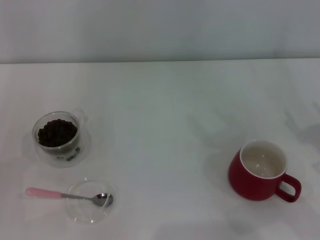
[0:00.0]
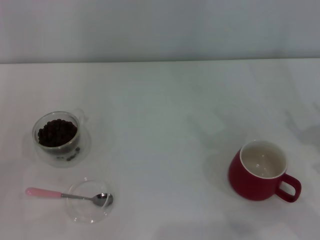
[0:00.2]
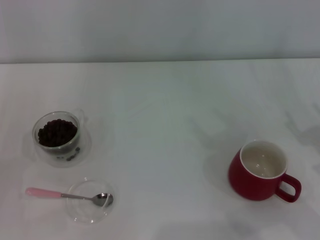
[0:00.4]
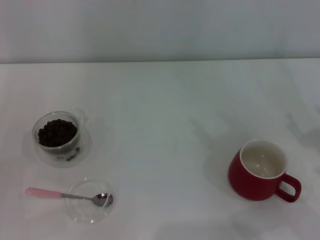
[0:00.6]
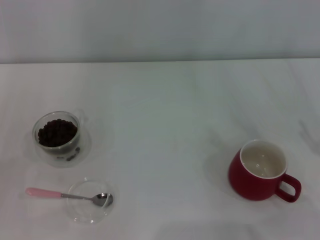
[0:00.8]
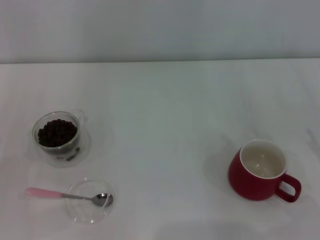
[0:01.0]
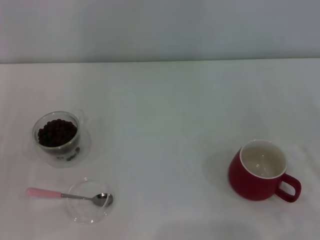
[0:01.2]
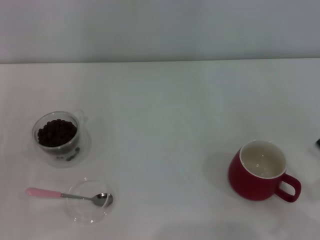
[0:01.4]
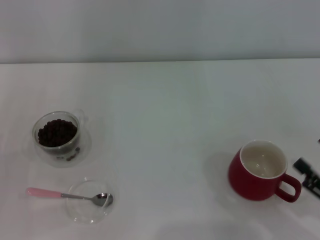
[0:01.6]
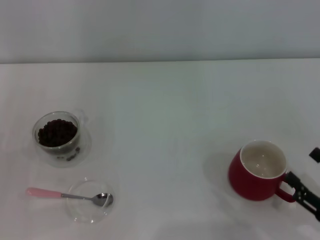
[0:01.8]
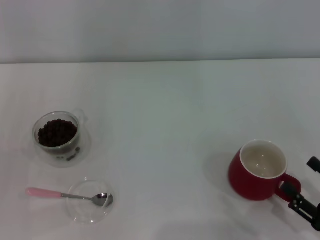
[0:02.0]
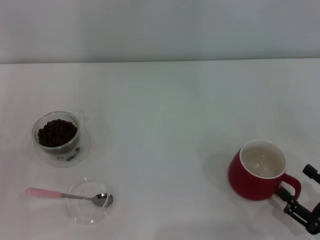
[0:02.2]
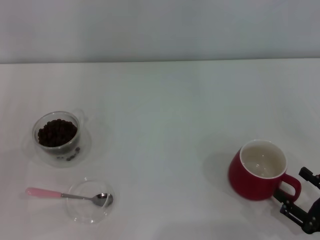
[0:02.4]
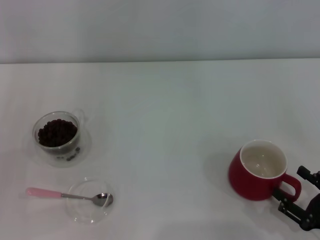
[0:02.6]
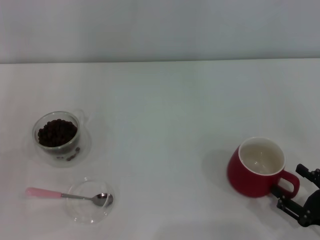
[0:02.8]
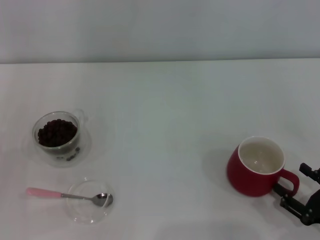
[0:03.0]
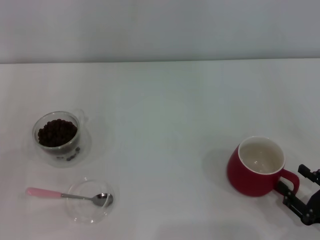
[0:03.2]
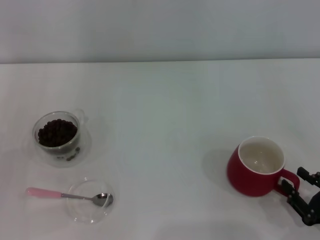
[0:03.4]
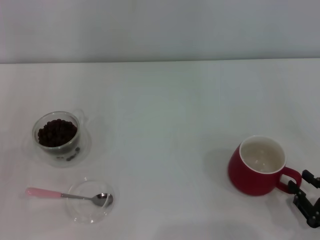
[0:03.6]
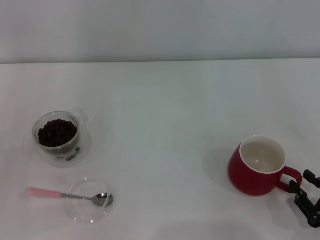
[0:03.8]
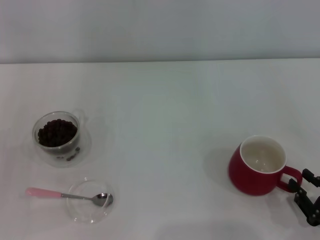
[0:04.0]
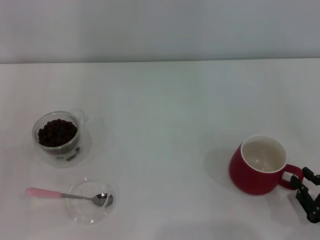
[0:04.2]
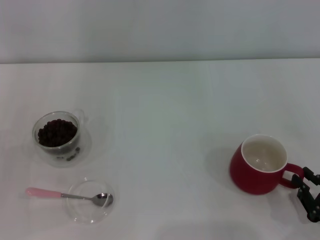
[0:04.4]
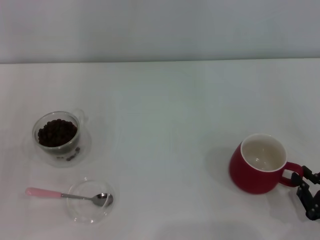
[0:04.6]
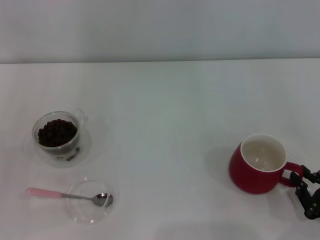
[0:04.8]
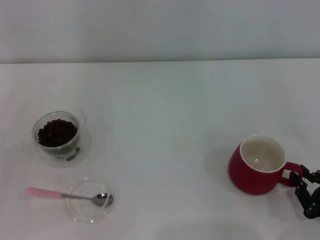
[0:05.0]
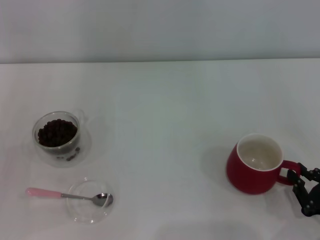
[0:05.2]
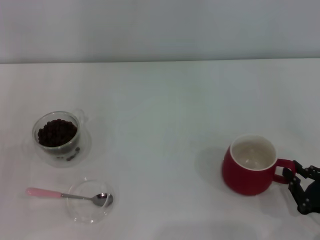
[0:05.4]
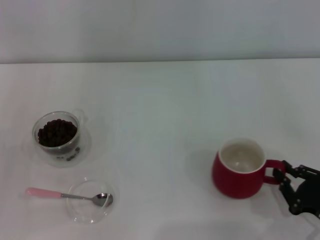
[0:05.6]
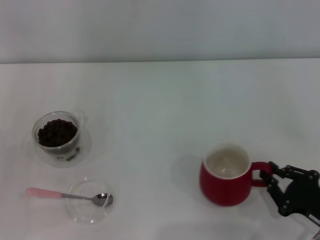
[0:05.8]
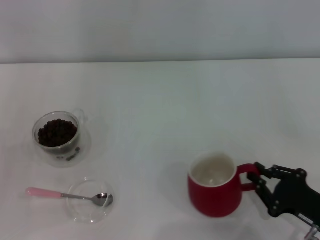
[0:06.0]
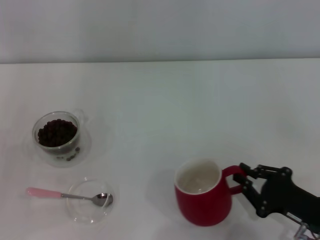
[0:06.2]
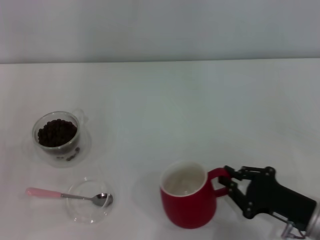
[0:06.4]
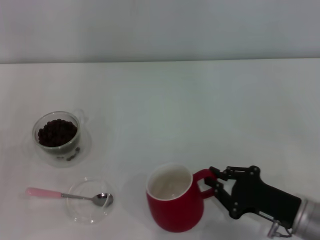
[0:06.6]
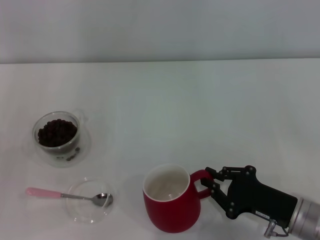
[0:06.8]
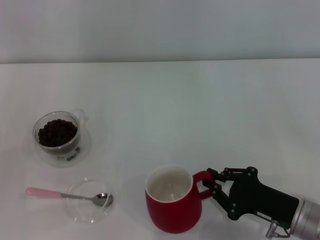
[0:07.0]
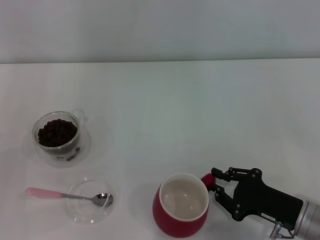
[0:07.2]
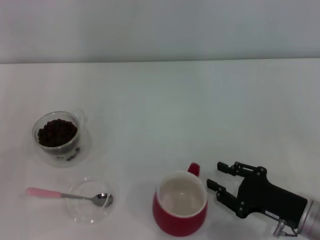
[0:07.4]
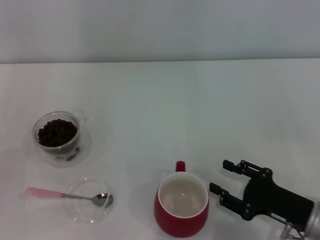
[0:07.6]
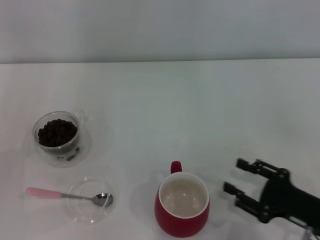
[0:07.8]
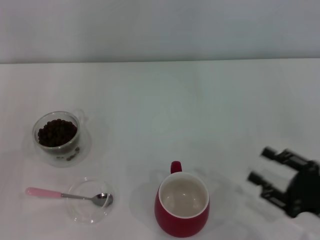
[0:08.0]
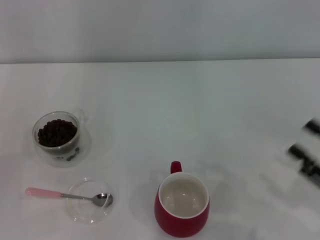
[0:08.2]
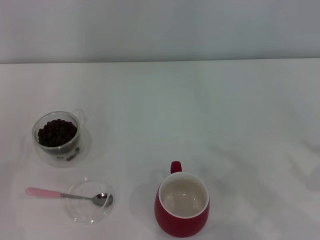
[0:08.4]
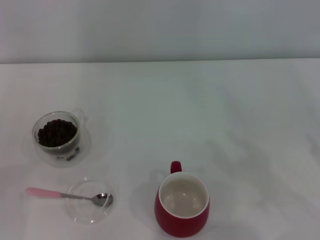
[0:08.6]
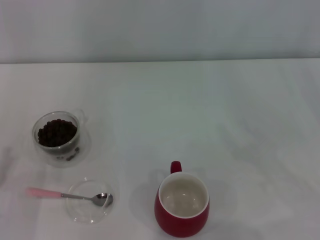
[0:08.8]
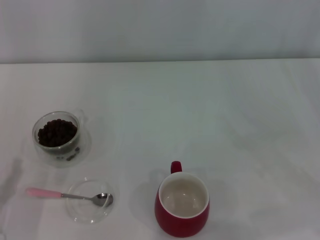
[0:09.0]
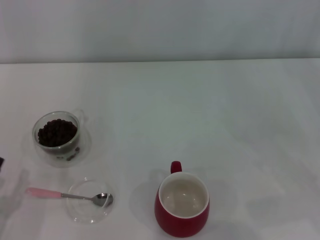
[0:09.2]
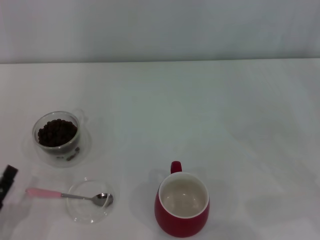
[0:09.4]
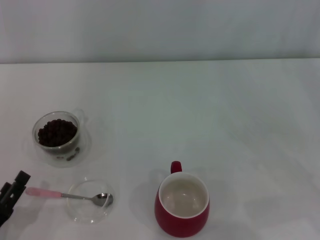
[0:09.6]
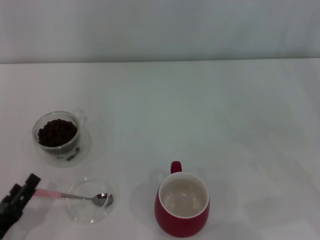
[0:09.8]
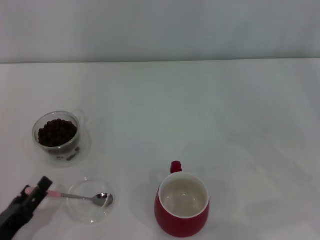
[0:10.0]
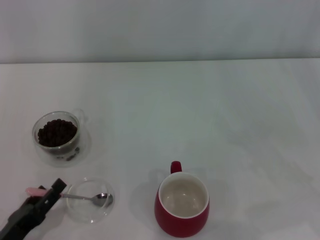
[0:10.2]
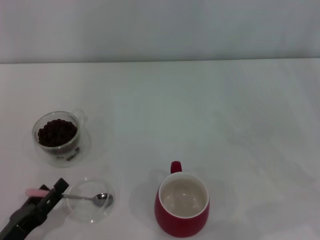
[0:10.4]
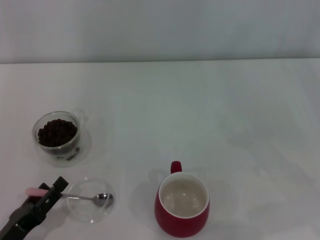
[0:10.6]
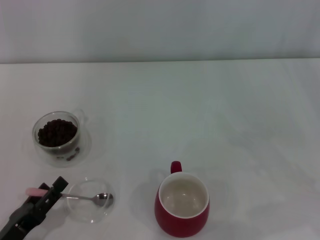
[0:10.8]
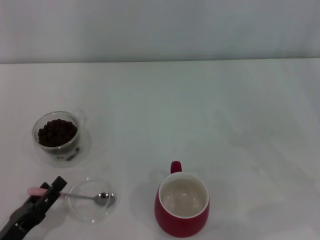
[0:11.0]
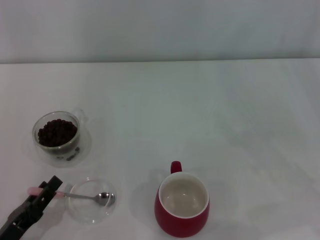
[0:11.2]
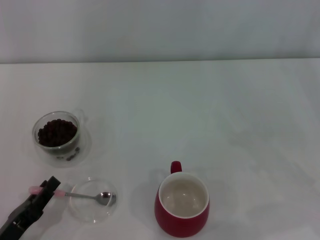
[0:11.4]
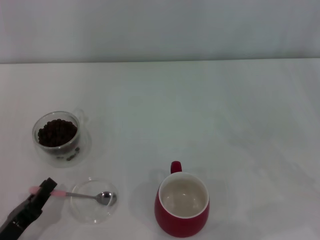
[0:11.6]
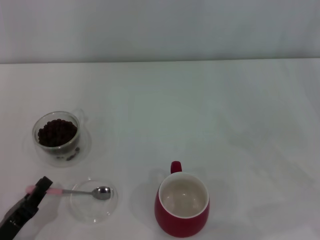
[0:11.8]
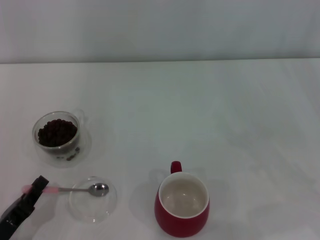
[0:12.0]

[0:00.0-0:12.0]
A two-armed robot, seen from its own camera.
Task of the whole recording: Use a pink spoon to take out the coffee beans from the glass and pour them into the red cup.
Step, 0:00.0 to 0:07.2: Move the cup to the center of view with the left gripper.
0:00.0 to 0:01.6: The right gripper heads backward and downward, covering some 10 cm.
0:01.6 to 0:03.0: The grippers move only a little.
0:03.0 to 0:04.4: The right gripper closes its fingers.
0:04.4 to 0:06.0: The right gripper changes place by about 5 cm.
0:06.0 to 0:07.6: The right gripper opens.
0:07.6 to 0:09.0: The left gripper travels to the right, downward and backward by about 10 cm; the right gripper heads to the right and upward, covering roughly 15 cm.
0:10.4 to 0:12.0: The left gripper closes its fingers.

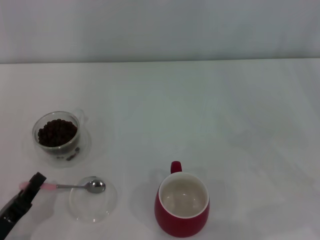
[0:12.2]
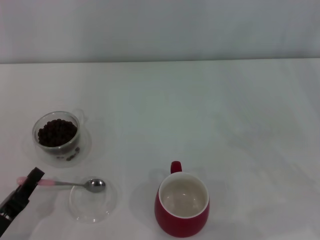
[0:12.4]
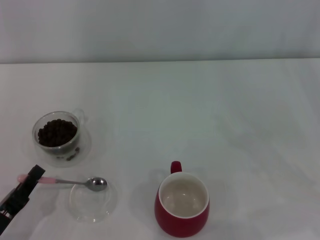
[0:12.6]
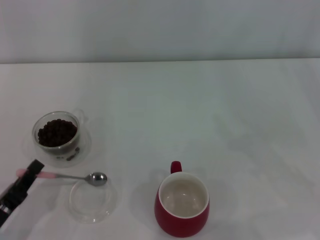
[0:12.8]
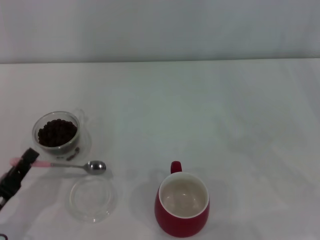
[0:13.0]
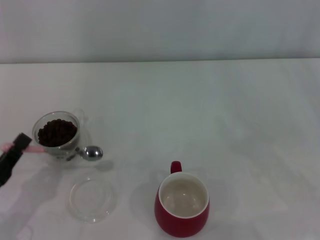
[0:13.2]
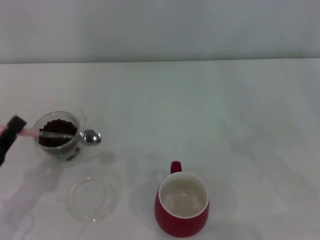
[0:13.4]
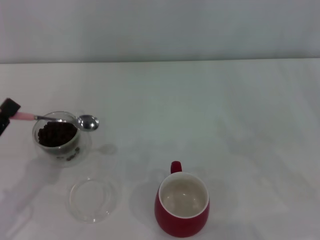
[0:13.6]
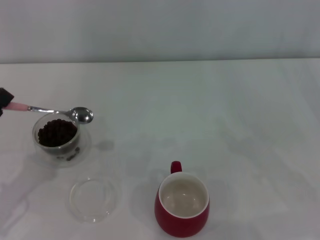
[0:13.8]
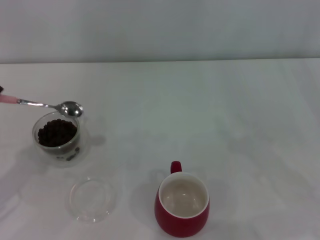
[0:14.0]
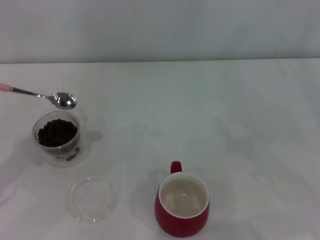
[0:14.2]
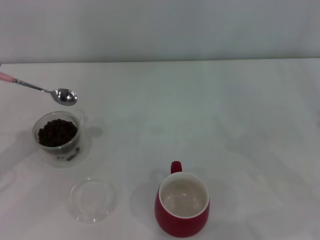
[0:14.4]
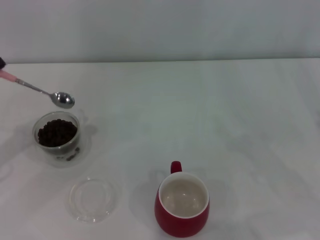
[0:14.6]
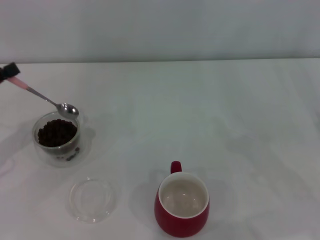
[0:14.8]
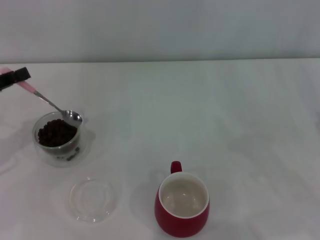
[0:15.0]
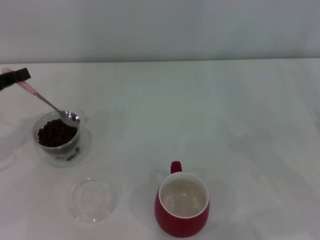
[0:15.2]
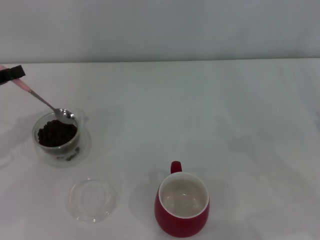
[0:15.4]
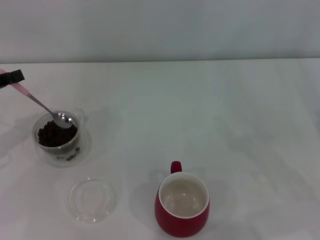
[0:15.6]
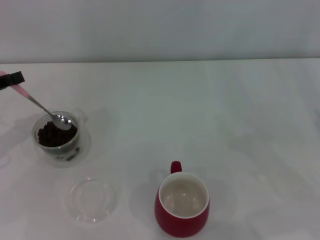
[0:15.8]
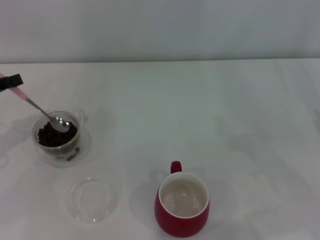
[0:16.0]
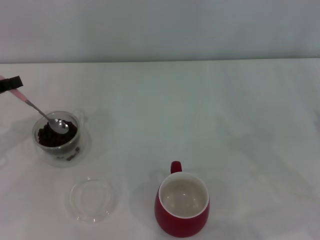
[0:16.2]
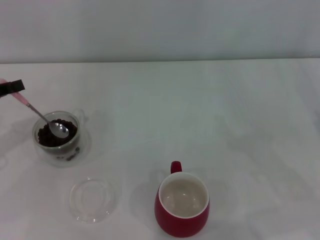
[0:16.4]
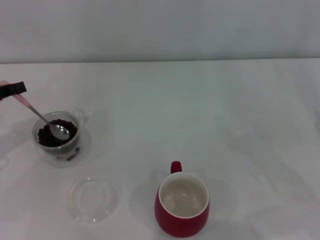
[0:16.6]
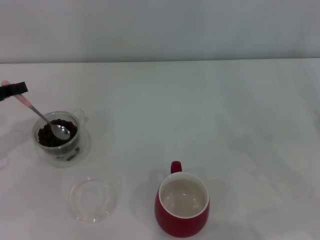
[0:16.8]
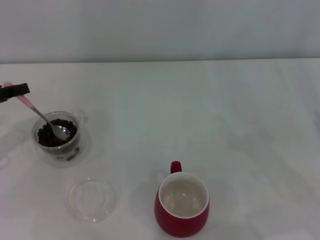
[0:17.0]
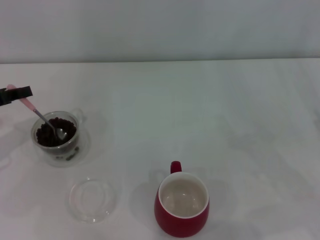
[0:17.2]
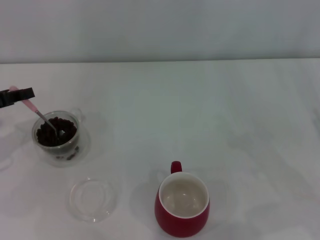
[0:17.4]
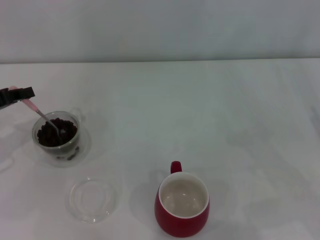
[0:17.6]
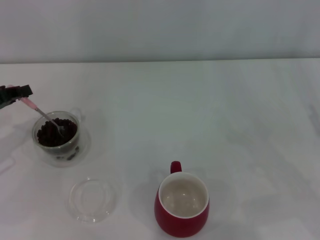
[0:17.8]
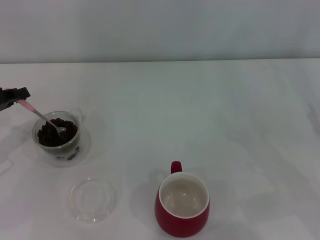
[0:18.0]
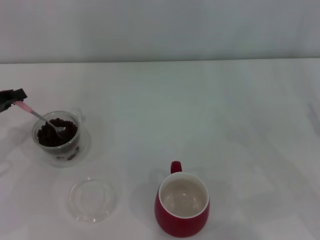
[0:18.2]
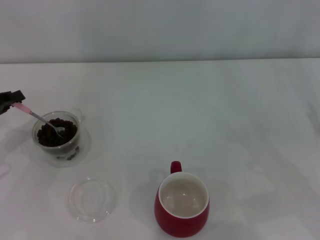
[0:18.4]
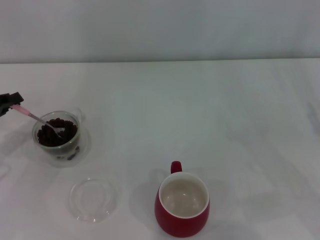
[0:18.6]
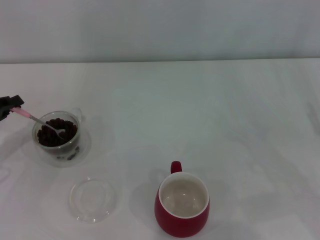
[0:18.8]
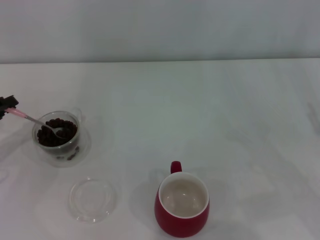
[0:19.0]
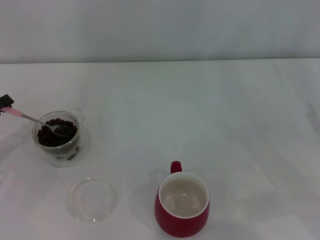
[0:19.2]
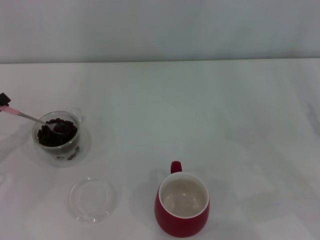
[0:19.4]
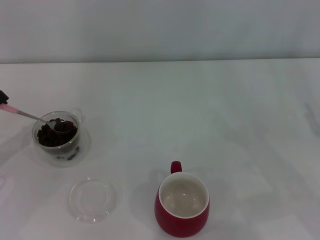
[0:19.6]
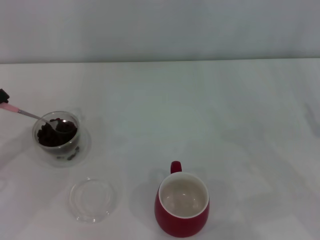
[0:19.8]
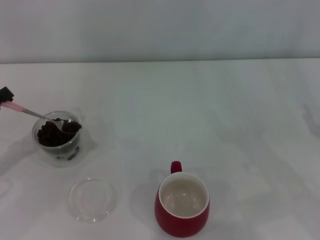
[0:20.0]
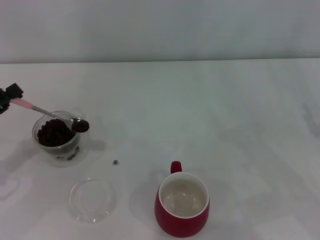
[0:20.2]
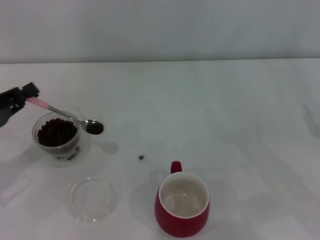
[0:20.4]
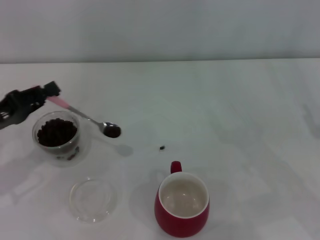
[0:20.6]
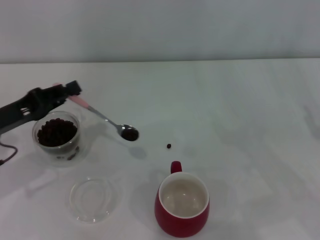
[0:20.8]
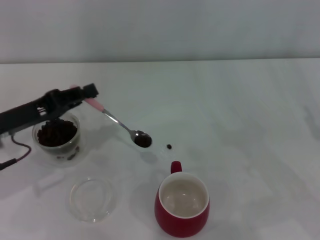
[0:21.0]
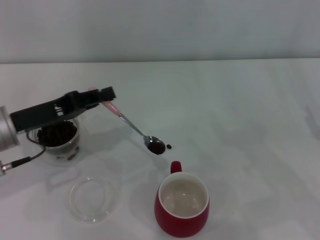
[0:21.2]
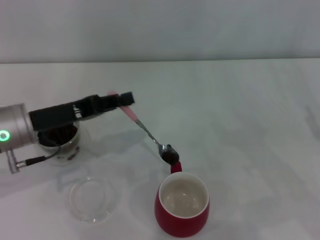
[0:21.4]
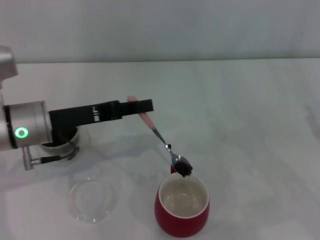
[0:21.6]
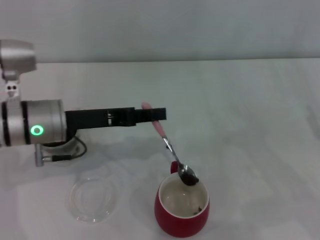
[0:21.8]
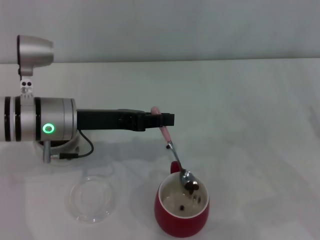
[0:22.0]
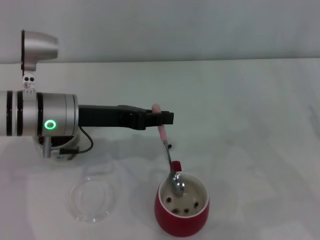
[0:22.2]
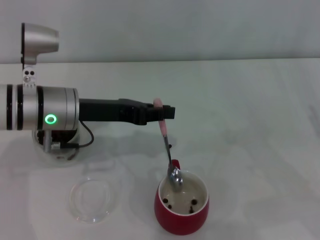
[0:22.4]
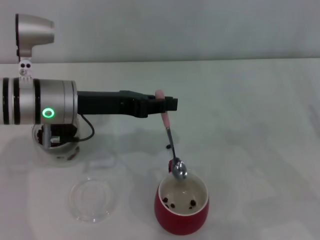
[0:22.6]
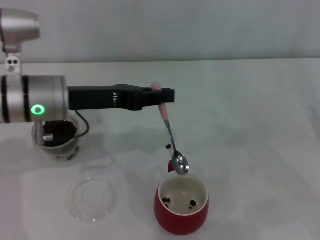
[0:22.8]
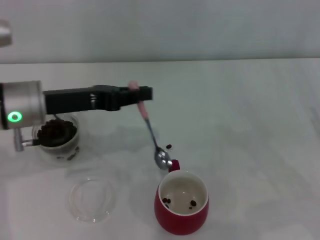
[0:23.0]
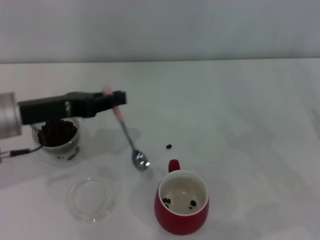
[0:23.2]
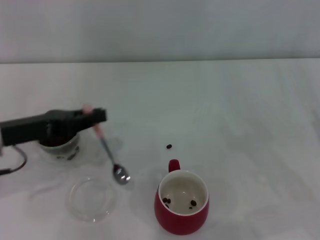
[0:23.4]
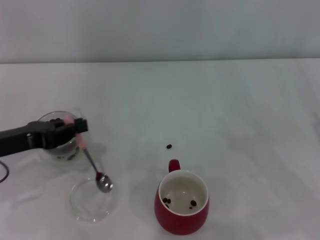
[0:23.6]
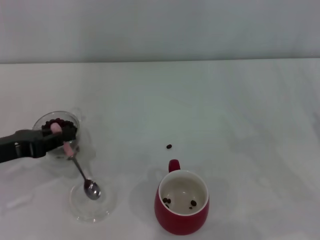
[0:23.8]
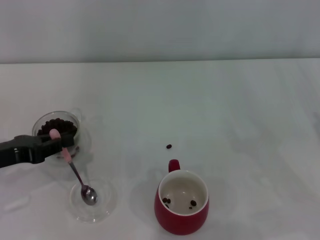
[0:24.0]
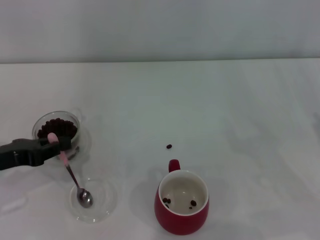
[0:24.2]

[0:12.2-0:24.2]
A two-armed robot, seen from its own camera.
Task of the whole recording: Use a pink spoon to take out the coffee beans from the glass and pour them into the red cup.
0:12.2 to 0:13.8: The left gripper moves upward and forward, approximately 10 cm.
0:13.8 to 0:15.2: The left gripper moves forward and upward, about 15 cm.
0:15.2 to 0:18.2: There are only small adjustments of the grippers.
0:18.2 to 0:19.8: The left gripper travels backward by some 5 cm.
0:19.8 to 0:21.2: The left gripper heads to the right, covering approximately 10 cm.
0:21.2 to 0:22.6: The left gripper shifts about 10 cm to the right.
0:22.6 to 0:24.2: The left gripper travels to the left and backward by some 15 cm.
